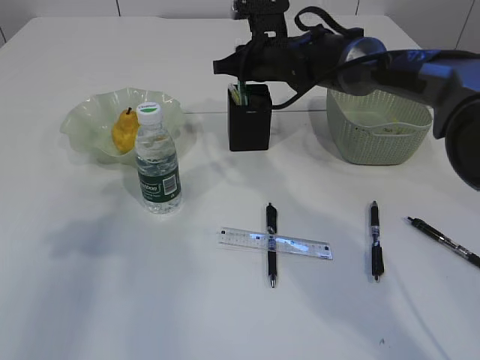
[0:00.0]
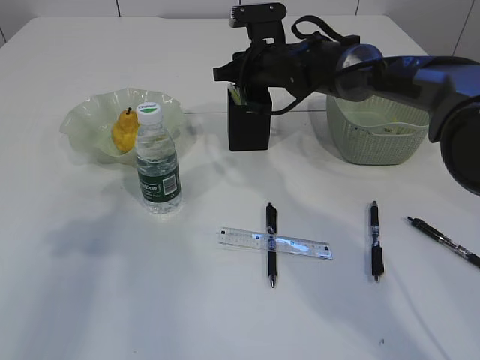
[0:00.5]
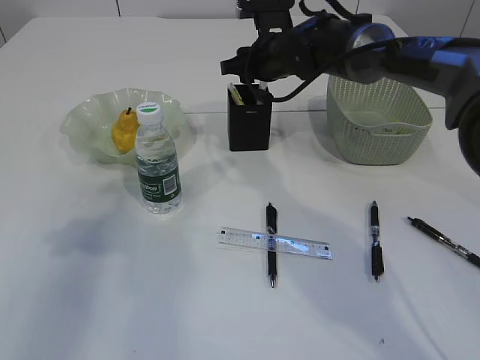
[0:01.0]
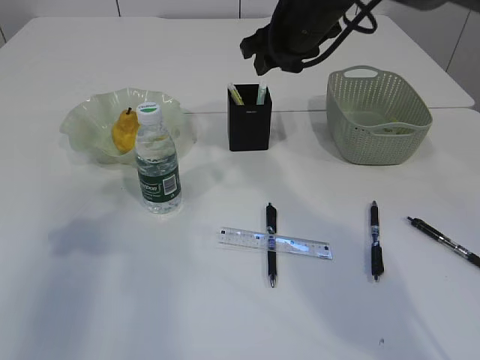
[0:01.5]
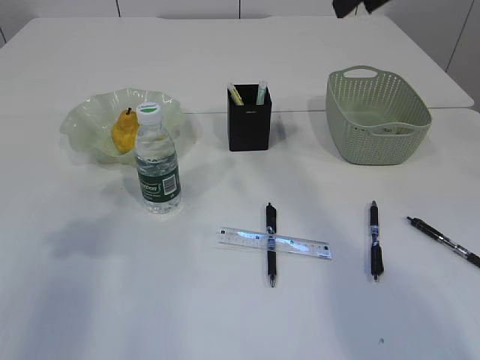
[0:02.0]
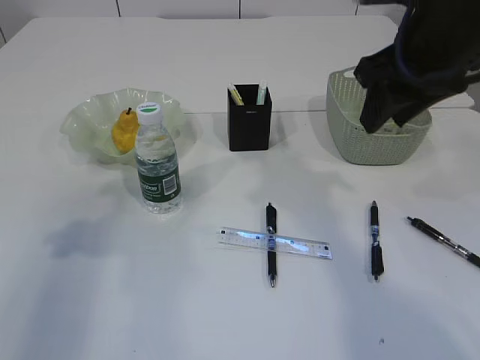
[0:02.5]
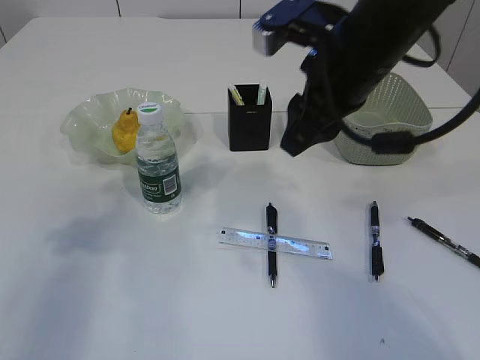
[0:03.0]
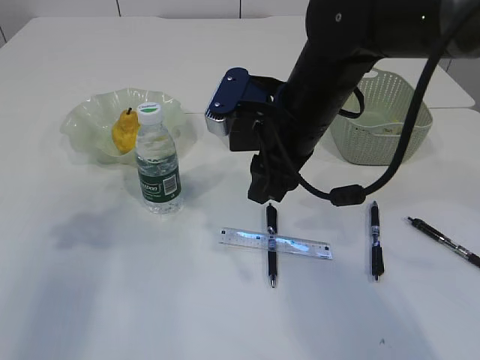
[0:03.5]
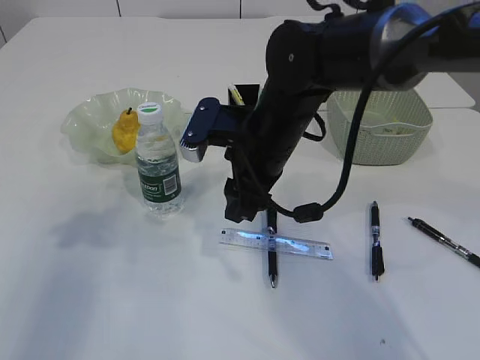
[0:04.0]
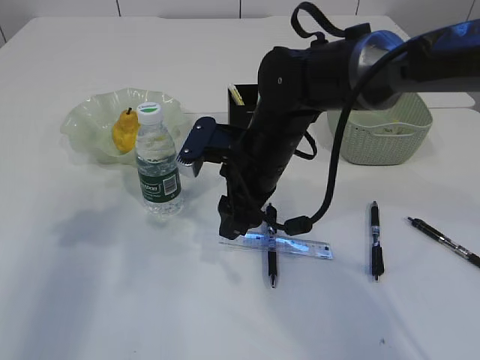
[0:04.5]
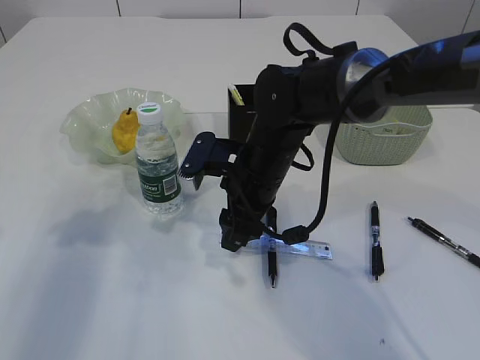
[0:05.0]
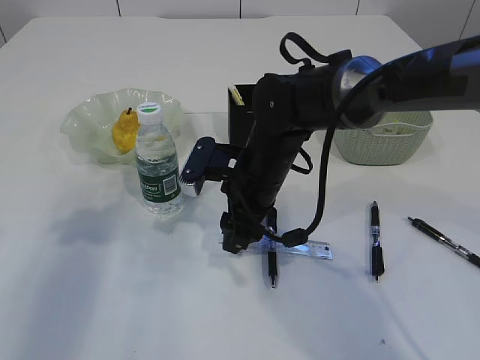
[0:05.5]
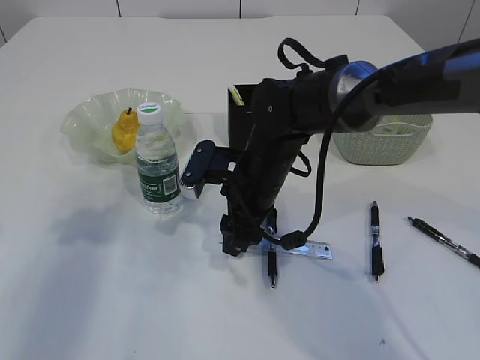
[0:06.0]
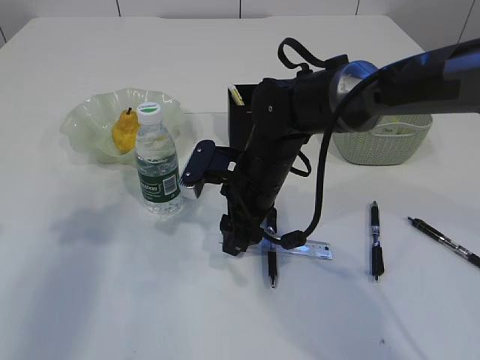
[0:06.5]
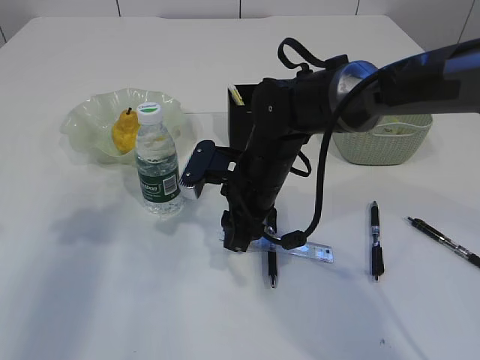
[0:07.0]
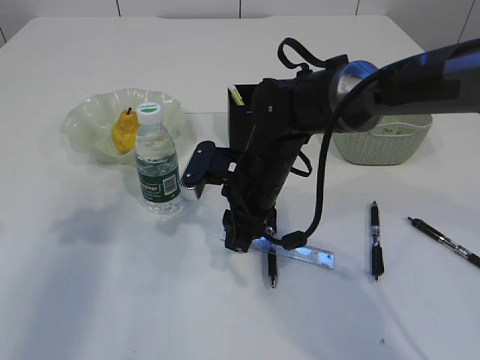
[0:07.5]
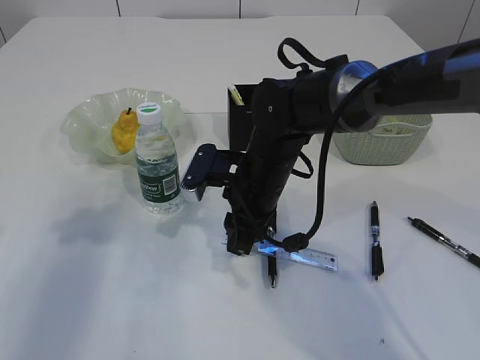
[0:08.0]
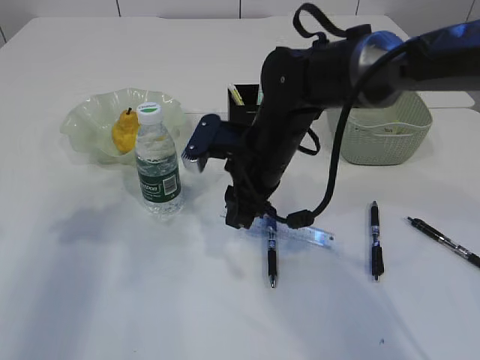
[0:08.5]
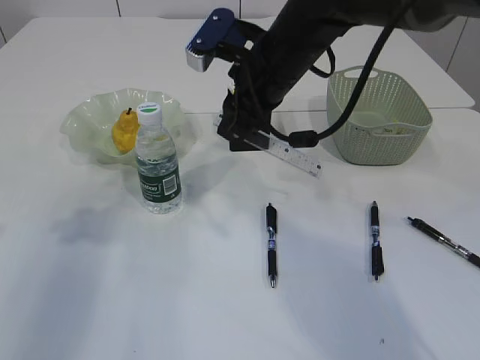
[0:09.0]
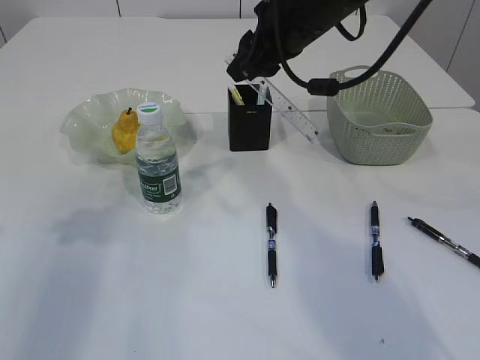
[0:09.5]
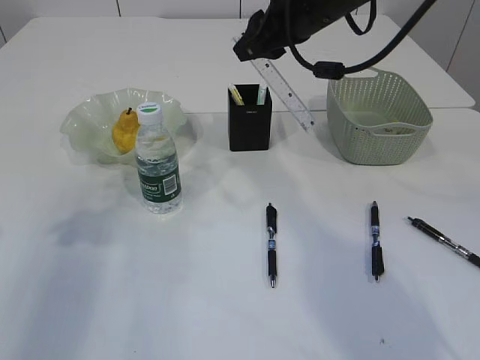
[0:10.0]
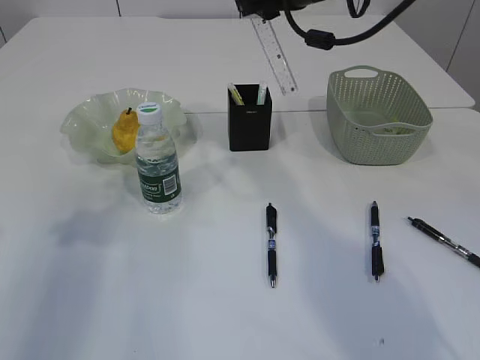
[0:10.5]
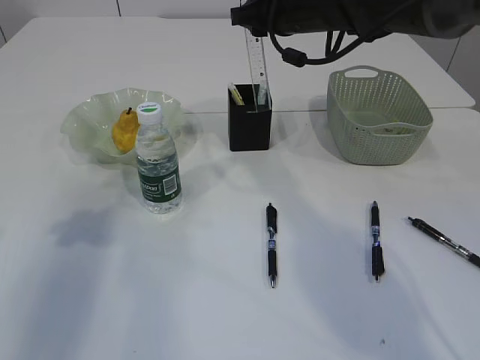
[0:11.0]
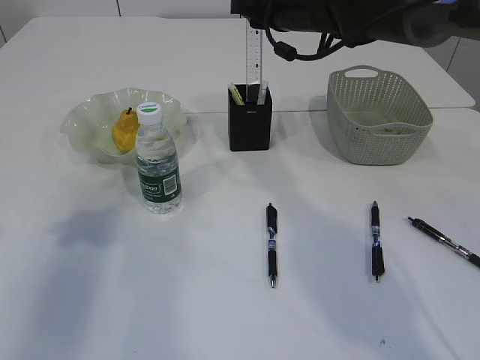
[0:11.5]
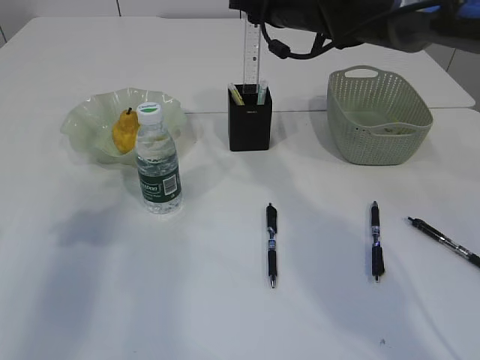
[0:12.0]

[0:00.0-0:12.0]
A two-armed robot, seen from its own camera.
Step, 0.0 to 2.5 s: Place the blue knife into the pen holder.
Step, 3.0 to 10.0 s: pick up the ruler.
0.0 to 2.0 s: The right gripper heads upward, backward and to the right, covering about 25 cm, and opens.
2.0 to 4.0 s: The right gripper is displaced downward and to the left by approximately 25 cm.
4.0 to 6.0 s: The right gripper heads downward, covering approximately 5 cm.
6.0 to 8.0 s: The right gripper closes up.
8.0 to 10.0 s: The right gripper moves upward, about 20 cm.
10.0 to 12.0 s: The right gripper is displaced forward by approximately 10 cm.

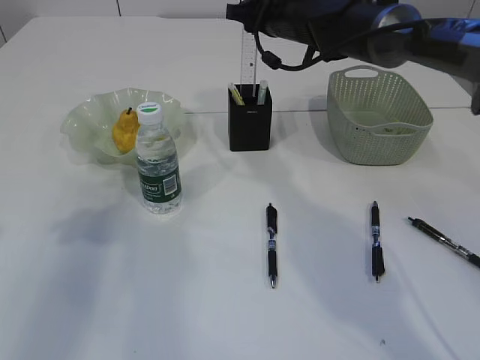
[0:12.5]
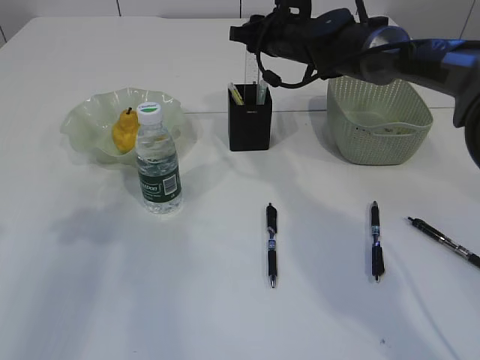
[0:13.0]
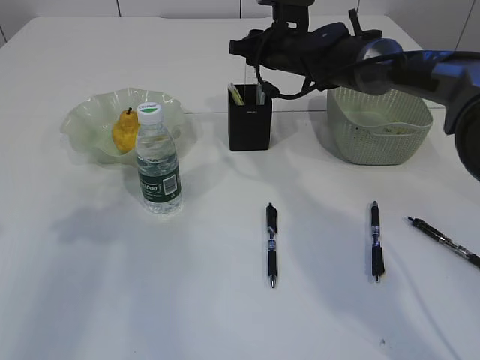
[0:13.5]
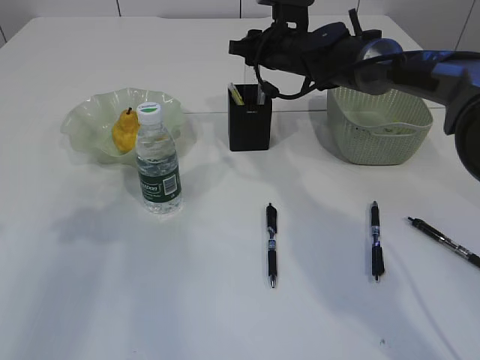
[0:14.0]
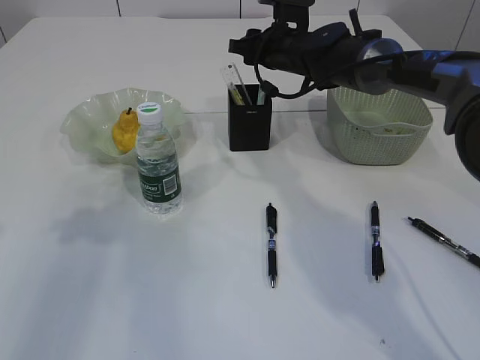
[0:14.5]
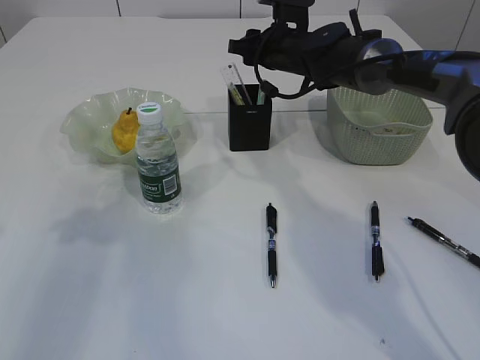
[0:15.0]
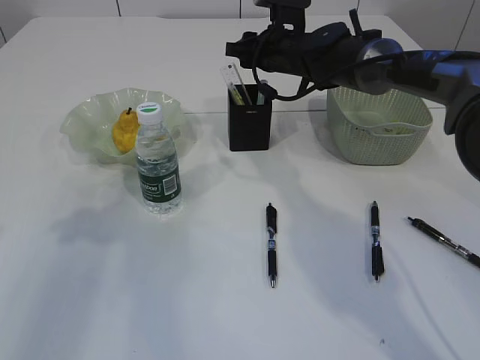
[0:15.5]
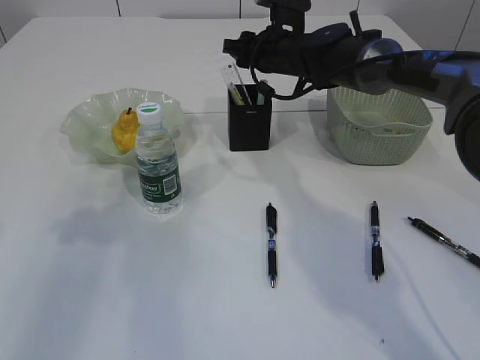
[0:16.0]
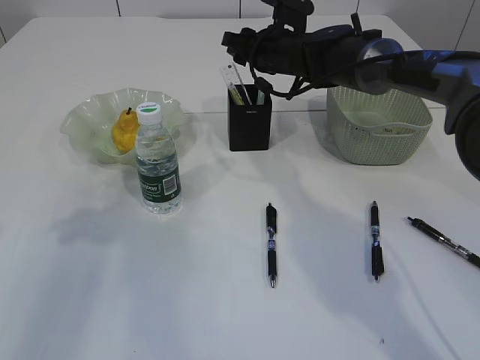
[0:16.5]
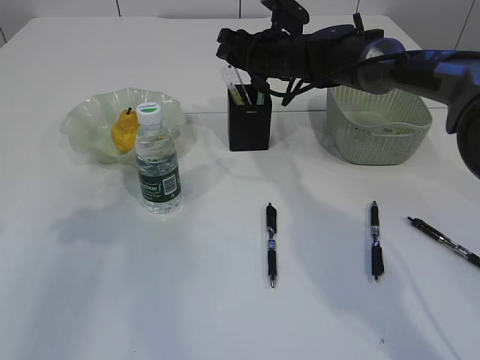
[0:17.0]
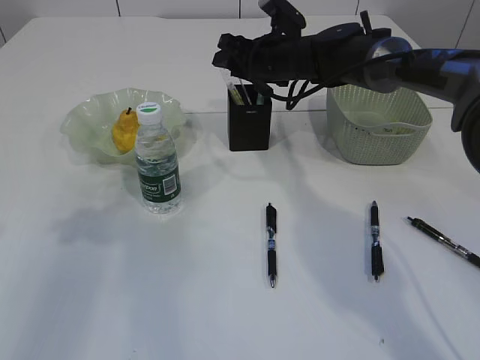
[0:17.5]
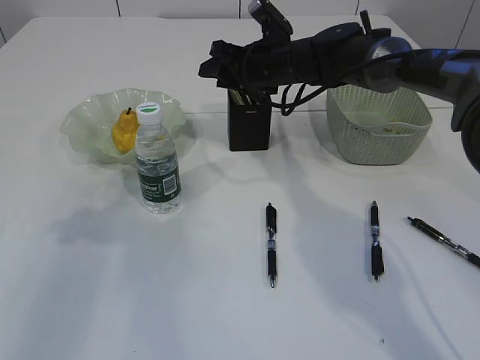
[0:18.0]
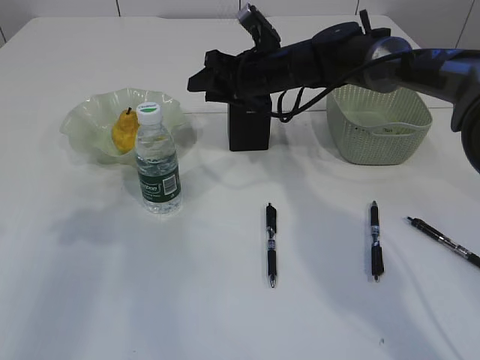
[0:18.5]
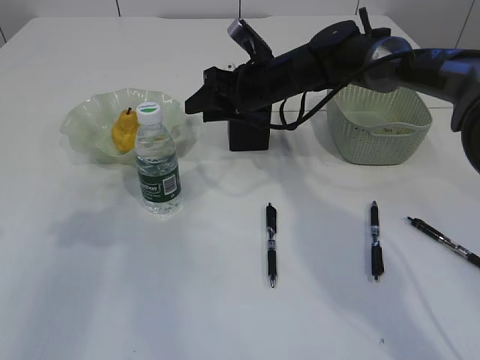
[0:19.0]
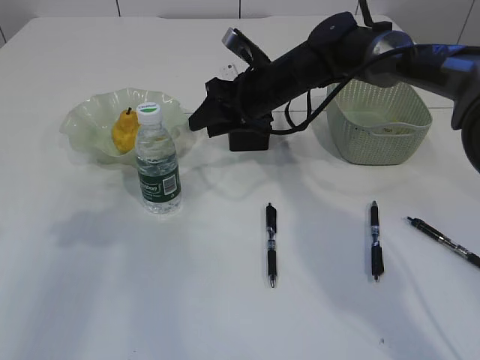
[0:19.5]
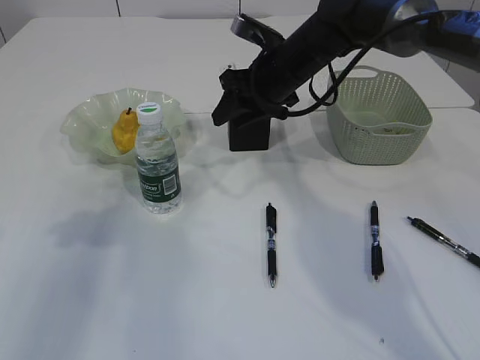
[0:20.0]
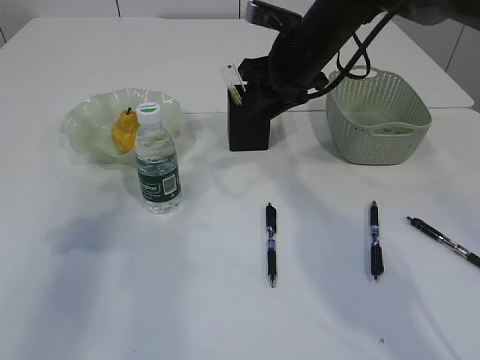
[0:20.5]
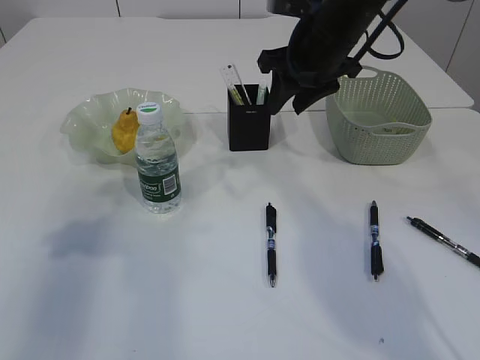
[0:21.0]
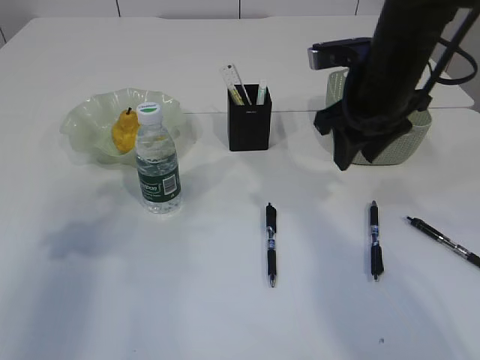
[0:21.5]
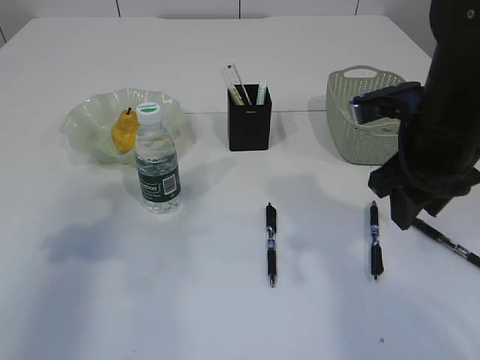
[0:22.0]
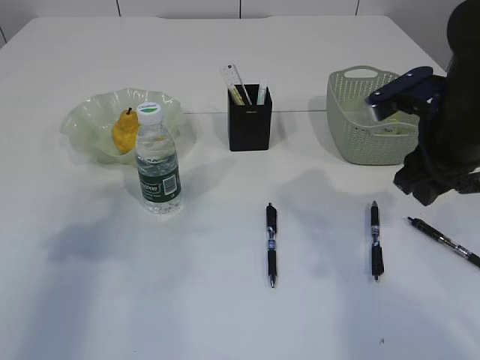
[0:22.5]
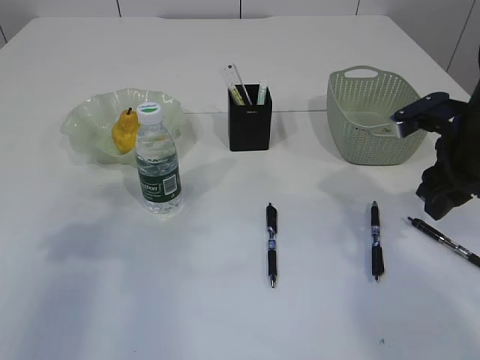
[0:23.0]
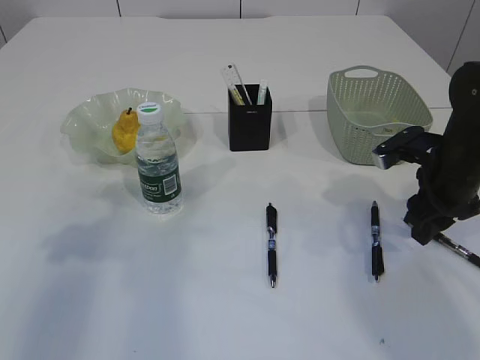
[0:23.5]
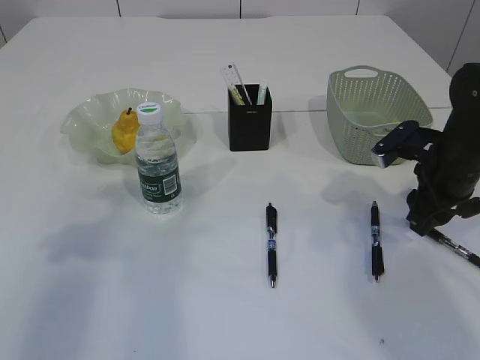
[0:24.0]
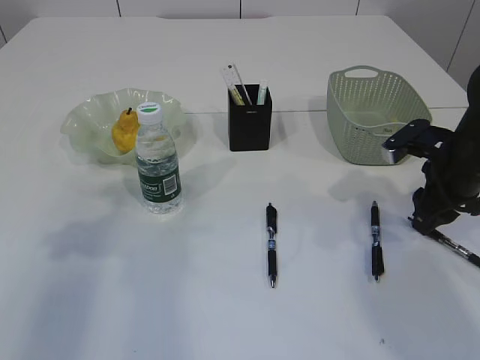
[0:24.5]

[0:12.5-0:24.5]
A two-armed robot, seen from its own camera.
Step, 12.5 to 16.5 s: Place the ruler into the pen holder.
12.5 to 14.5 s: The right gripper is displaced downward by about 5 cm.
14.5 to 16.5 s: The grippers stay close to where they were, moving slightly.
18.5 to 20.5 s: The right gripper goes roughly 5 cm upward and backward.
20.5 to 22.5 s: The right gripper shifts approximately 20 cm backward and to the right.
22.5 to 24.5 s: The right gripper travels downward and to the right by roughly 10 cm.

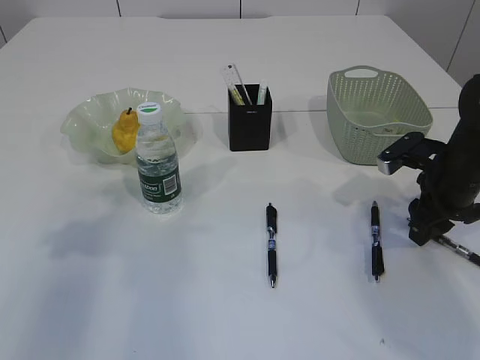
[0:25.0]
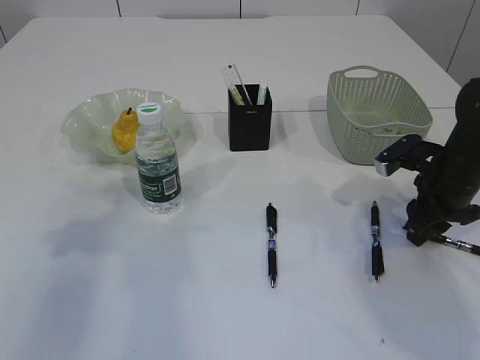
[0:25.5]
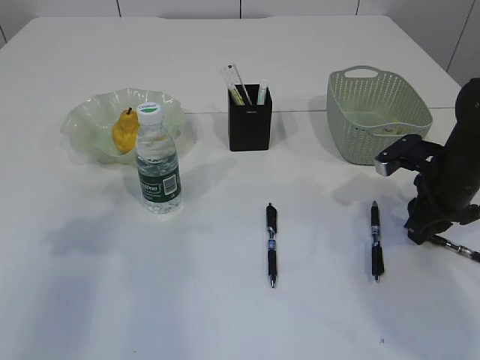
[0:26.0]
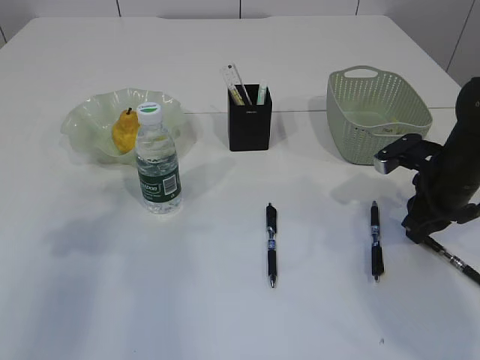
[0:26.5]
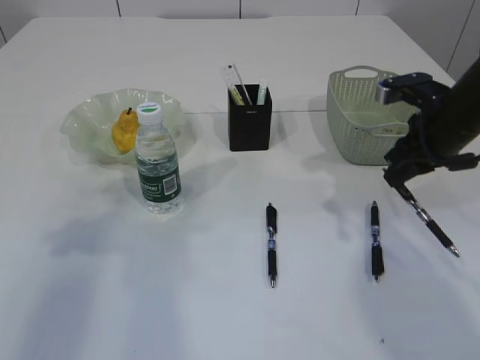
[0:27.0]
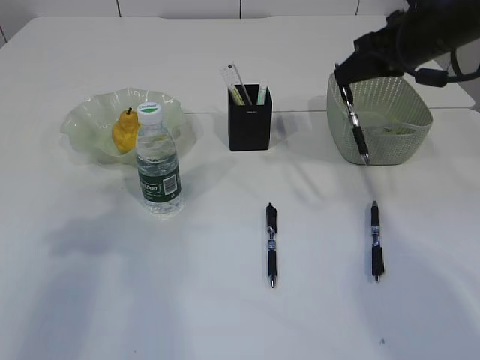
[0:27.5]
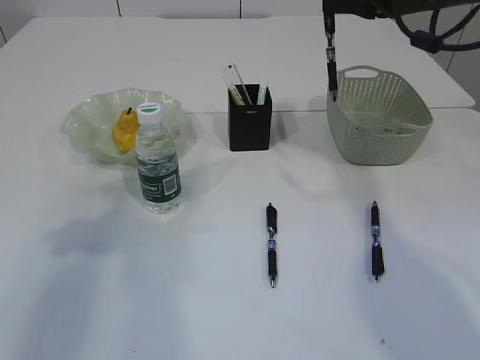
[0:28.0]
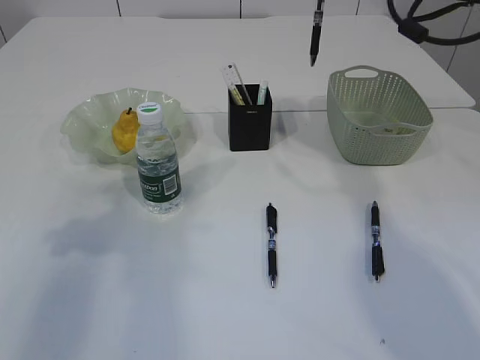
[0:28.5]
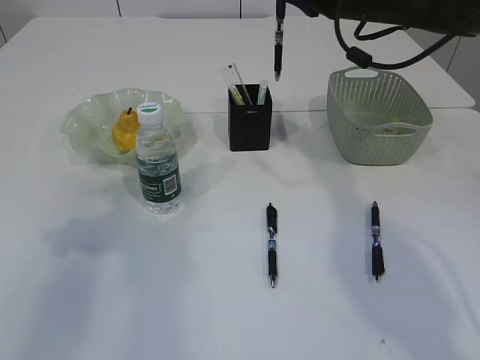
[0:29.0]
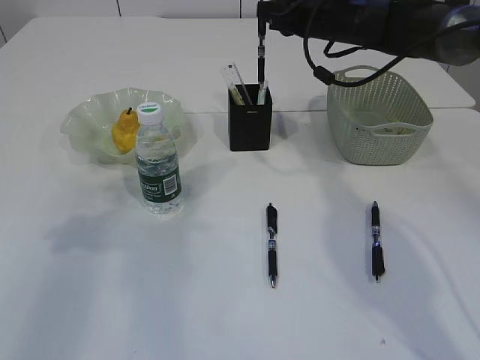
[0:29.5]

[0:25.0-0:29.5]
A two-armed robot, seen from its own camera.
Step, 25.0 to 27.0 s: Pick up the pen with right arm.
25.0 to 27.0 s: The right gripper travels upward by approximately 5 cm, and closes up.
27.0 to 29.5 s: The right gripper shifts approximately 20 cm forward, to the left and upward.
